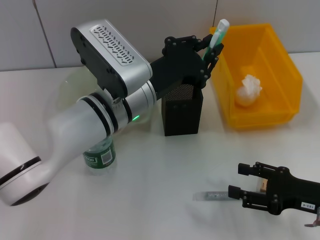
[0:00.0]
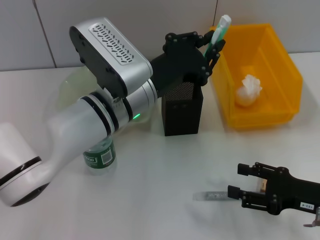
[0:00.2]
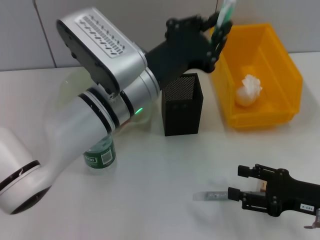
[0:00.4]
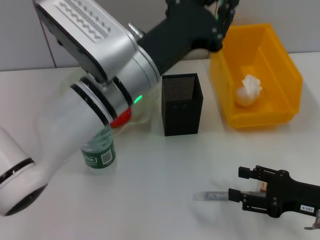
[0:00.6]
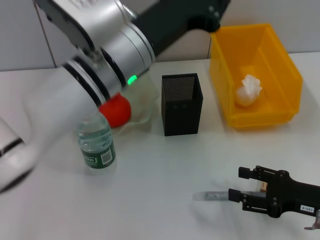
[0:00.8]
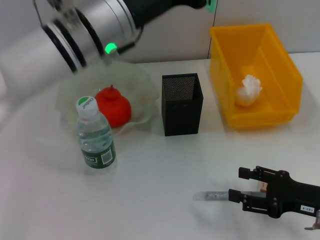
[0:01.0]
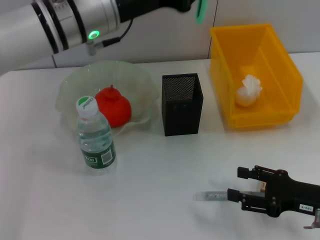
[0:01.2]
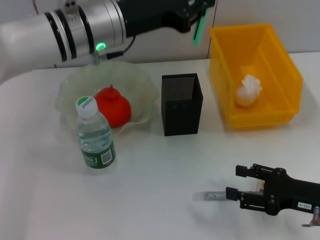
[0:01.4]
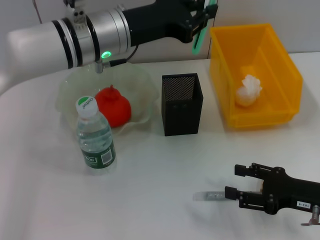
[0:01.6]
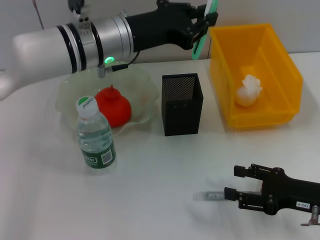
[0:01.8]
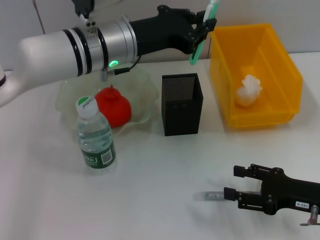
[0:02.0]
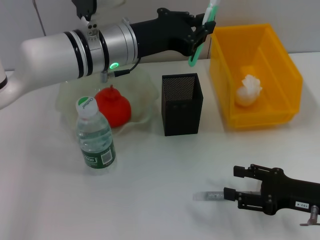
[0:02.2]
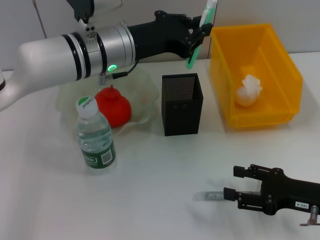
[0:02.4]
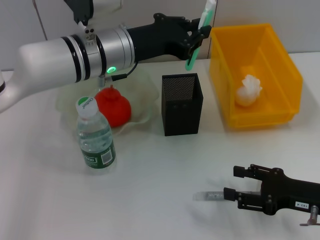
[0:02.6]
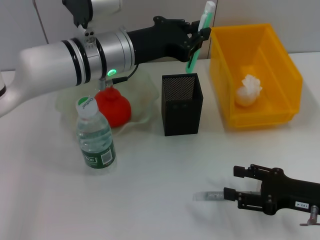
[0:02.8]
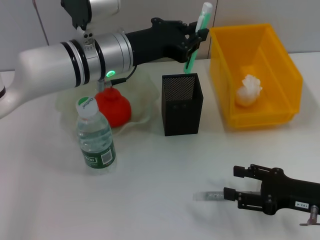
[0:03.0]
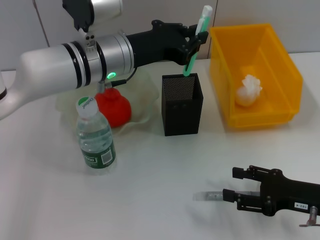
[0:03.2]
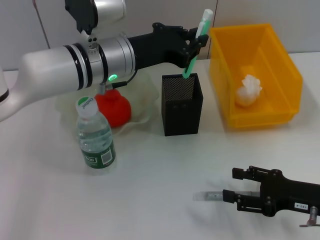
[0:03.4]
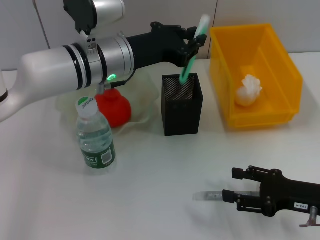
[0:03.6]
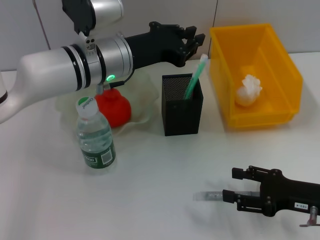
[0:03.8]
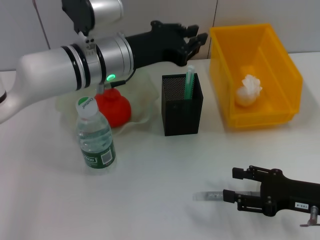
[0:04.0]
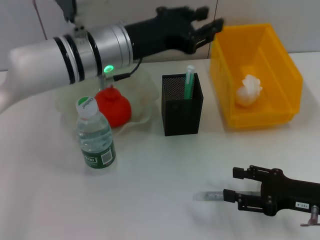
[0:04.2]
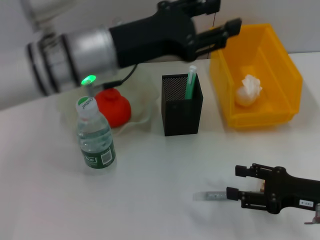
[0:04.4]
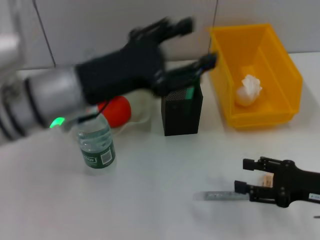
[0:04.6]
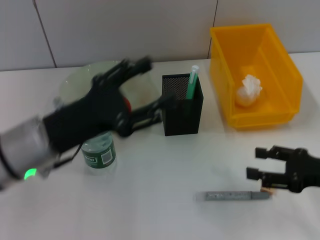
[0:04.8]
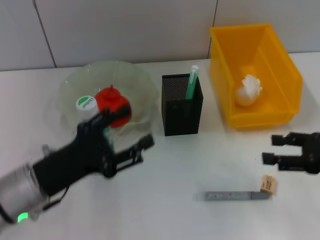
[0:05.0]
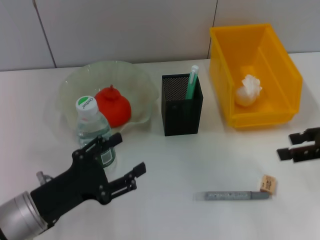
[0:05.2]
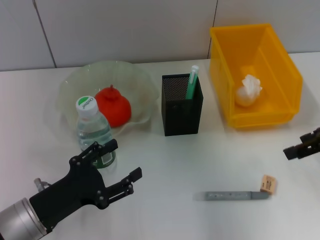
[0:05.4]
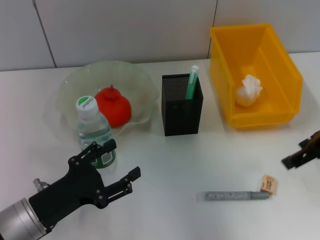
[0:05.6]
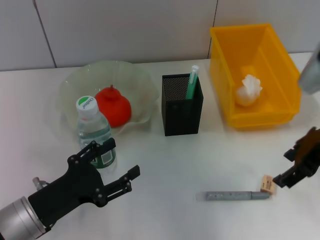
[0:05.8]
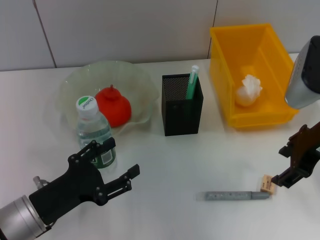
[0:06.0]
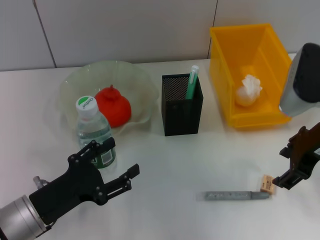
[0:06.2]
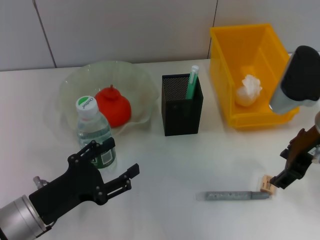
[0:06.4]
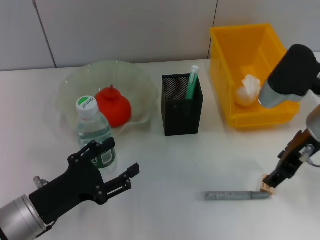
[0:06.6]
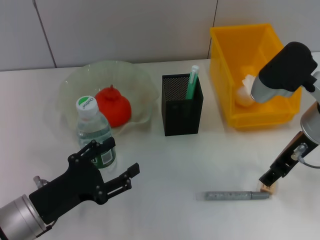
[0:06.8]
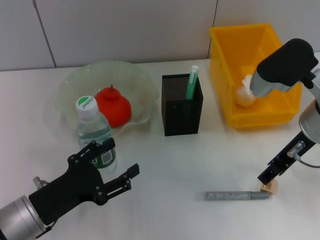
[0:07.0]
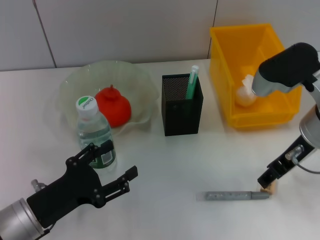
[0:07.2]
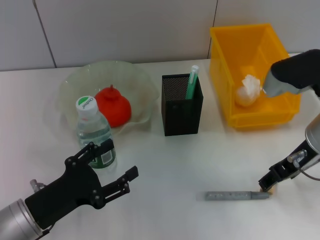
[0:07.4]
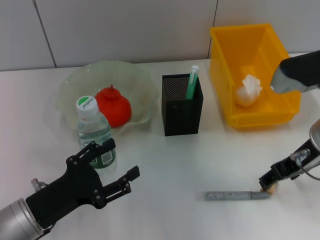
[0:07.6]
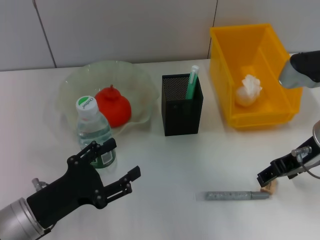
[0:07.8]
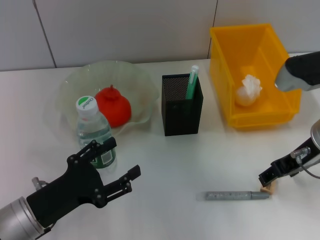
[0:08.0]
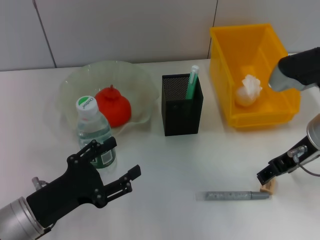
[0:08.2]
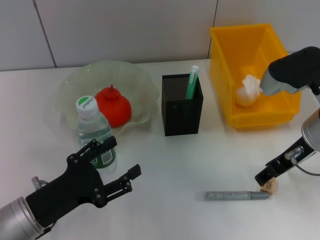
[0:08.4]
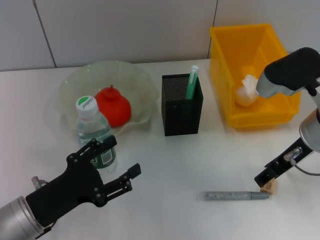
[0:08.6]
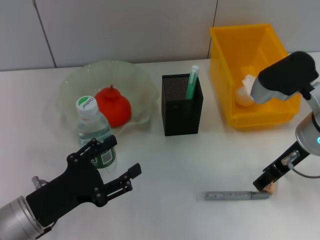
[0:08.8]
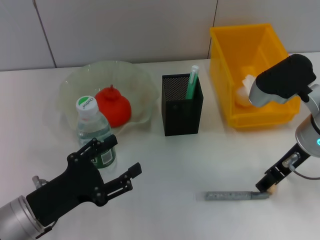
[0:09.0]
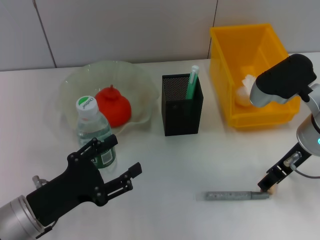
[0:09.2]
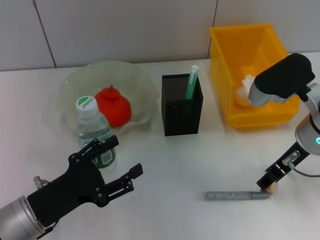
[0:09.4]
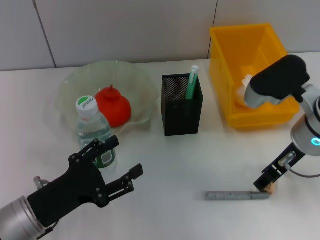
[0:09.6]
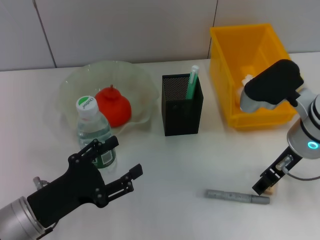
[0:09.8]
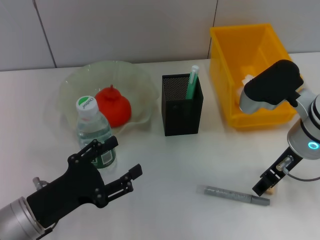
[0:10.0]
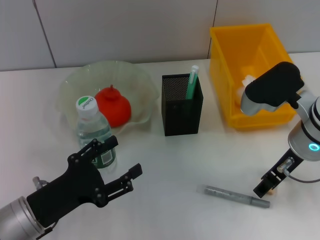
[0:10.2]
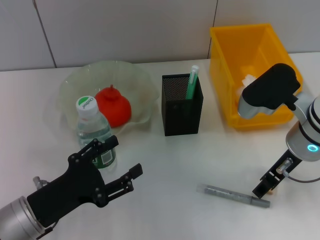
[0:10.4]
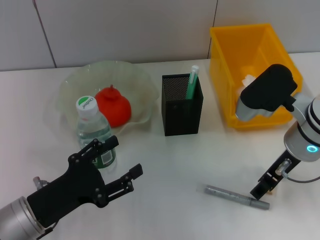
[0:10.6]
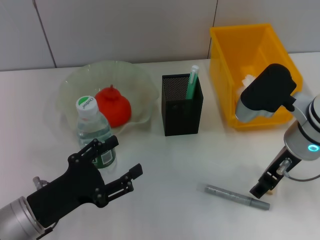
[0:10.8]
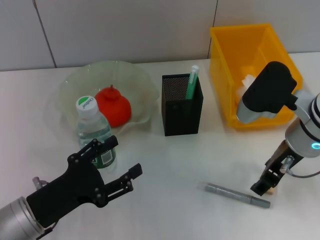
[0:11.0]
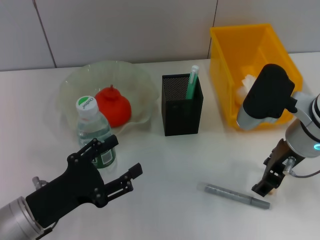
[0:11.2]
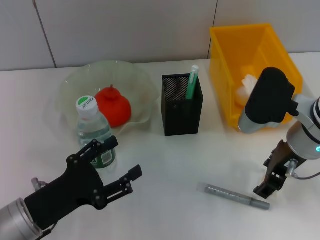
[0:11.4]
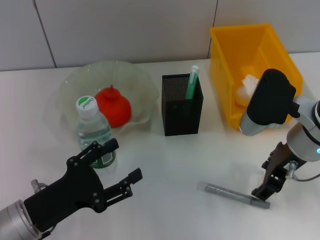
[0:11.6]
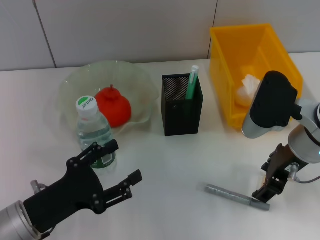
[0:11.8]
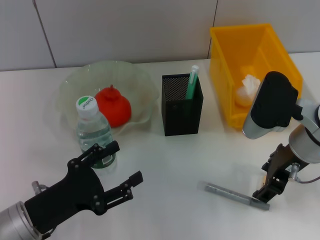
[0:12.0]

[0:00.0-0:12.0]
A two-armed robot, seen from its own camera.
Step, 0:00.0 to 0:04.2: Place the blue utility knife into the pen holder with the left hand.
0:00.0 to 0:01.6: The left gripper travels upward and forward by roughly 10 cm.
0:01.6 to 0:03.0: There are only small adjustments of the grippers.
0:03.0 to 0:04.4: The left gripper goes roughly 5 cm backward, and opens its fingers.
0:04.4 to 0:06.0: The right gripper travels upward and forward by about 15 cm, while the left gripper heads downward, backward and to the left, covering approximately 25 cm, and opens.
0:07.6 to 0:09.0: The grippers stay close to where they were, moving slightly.
0:09.0 to 0:10.4: The grippers stay close to where they were, moving slightly.

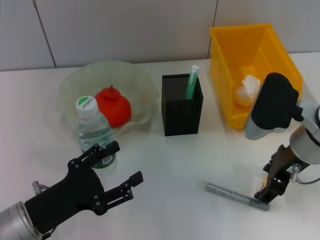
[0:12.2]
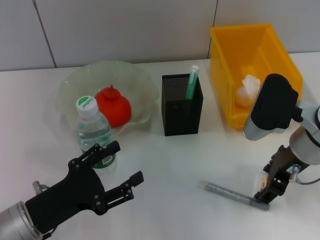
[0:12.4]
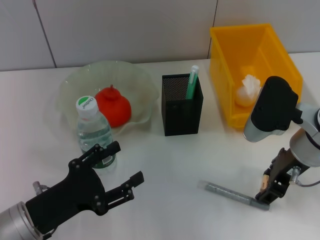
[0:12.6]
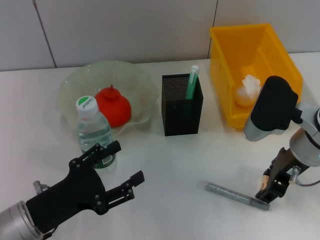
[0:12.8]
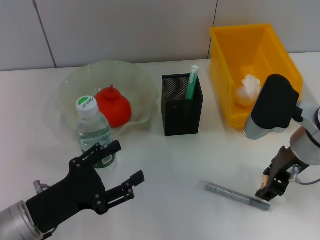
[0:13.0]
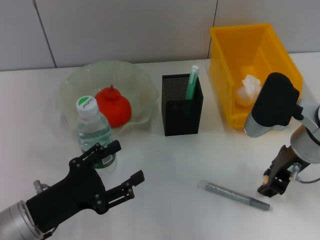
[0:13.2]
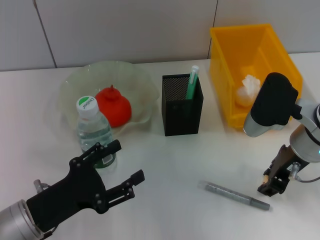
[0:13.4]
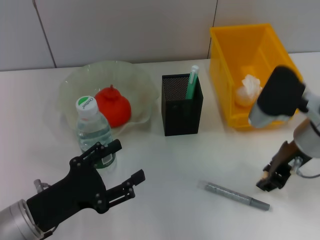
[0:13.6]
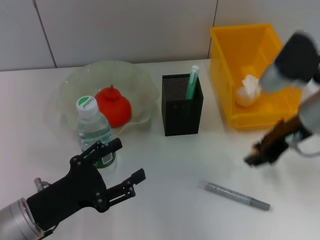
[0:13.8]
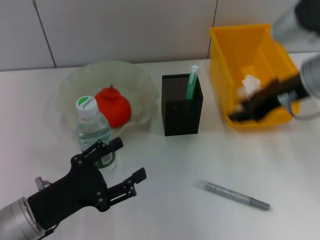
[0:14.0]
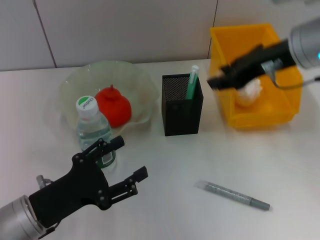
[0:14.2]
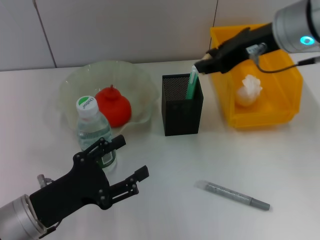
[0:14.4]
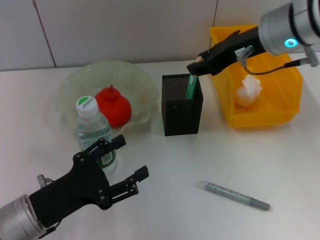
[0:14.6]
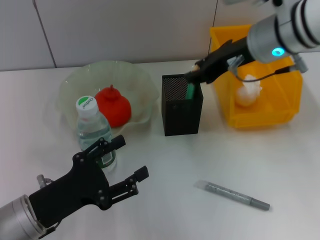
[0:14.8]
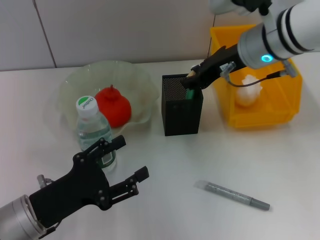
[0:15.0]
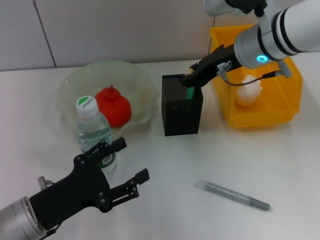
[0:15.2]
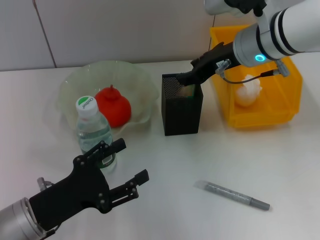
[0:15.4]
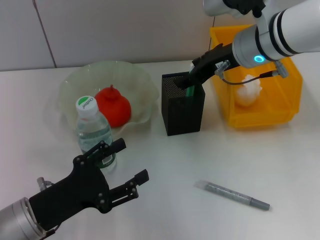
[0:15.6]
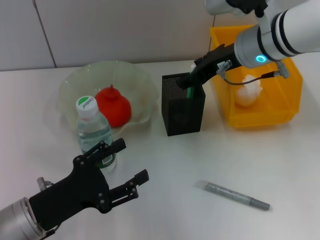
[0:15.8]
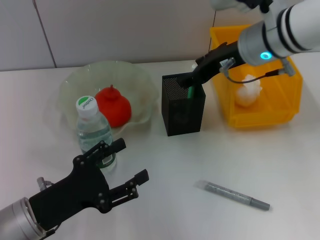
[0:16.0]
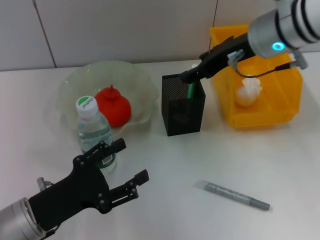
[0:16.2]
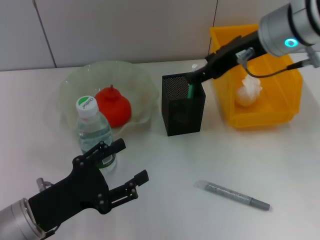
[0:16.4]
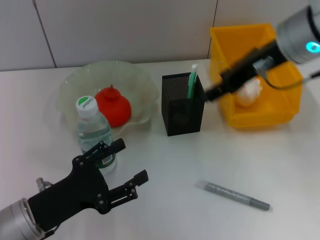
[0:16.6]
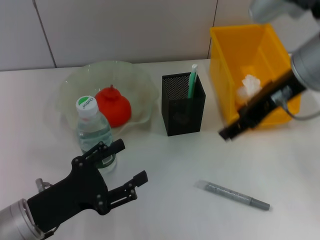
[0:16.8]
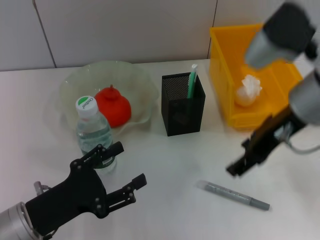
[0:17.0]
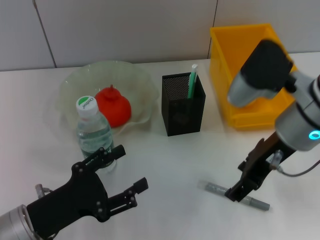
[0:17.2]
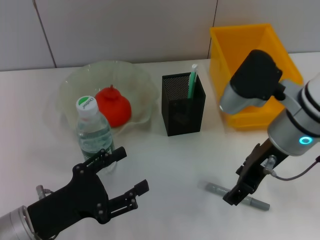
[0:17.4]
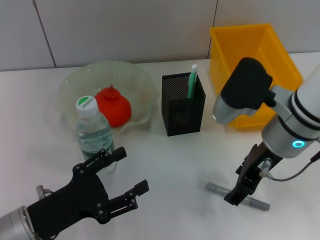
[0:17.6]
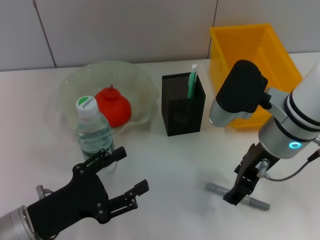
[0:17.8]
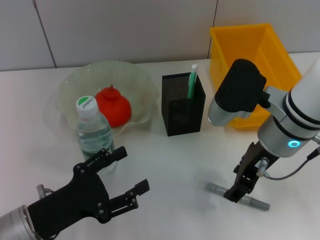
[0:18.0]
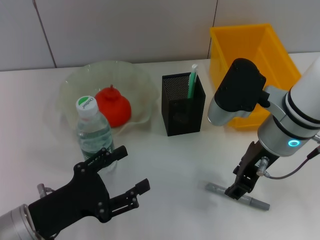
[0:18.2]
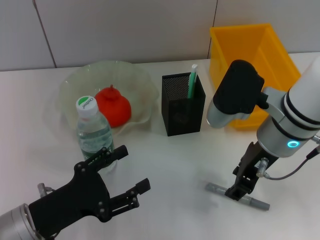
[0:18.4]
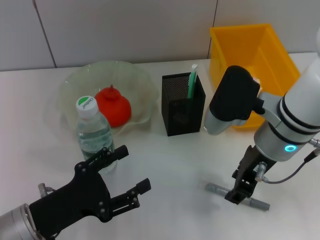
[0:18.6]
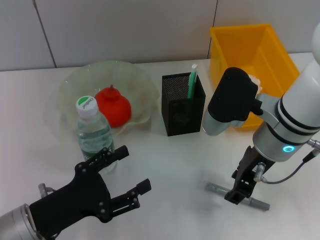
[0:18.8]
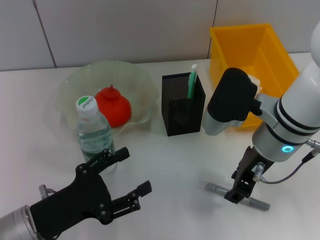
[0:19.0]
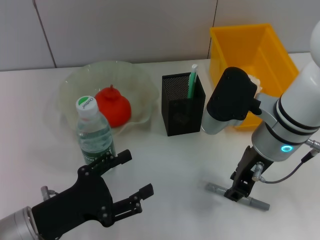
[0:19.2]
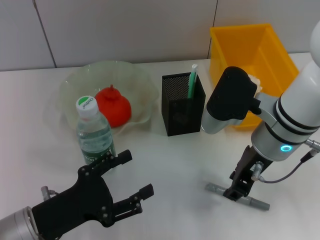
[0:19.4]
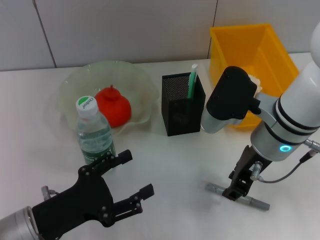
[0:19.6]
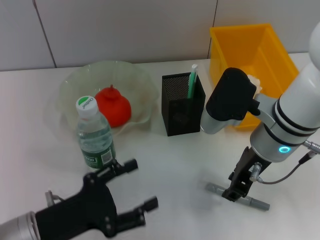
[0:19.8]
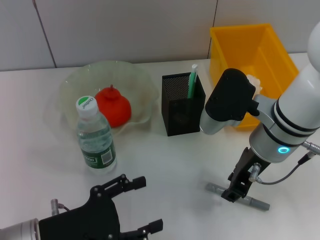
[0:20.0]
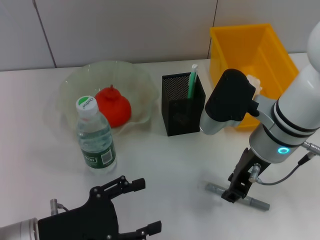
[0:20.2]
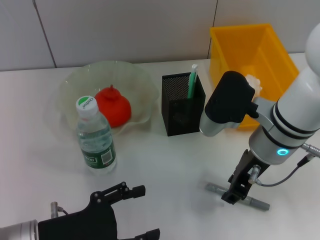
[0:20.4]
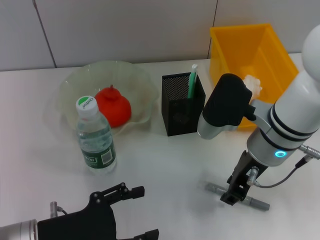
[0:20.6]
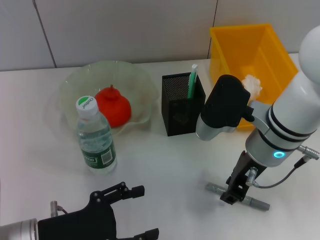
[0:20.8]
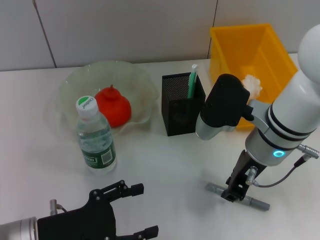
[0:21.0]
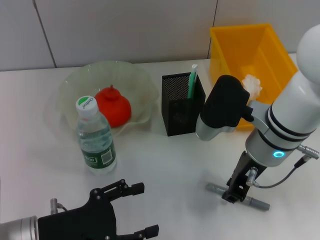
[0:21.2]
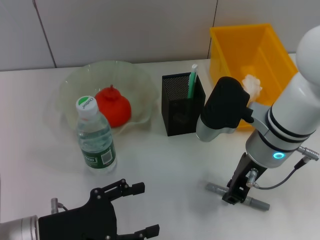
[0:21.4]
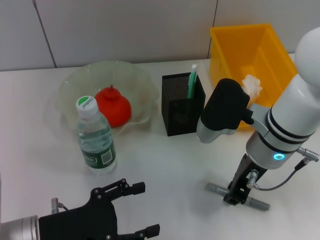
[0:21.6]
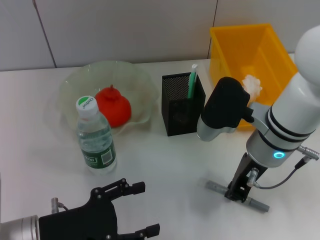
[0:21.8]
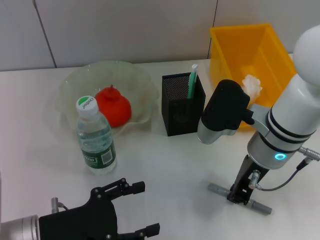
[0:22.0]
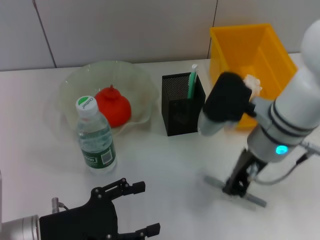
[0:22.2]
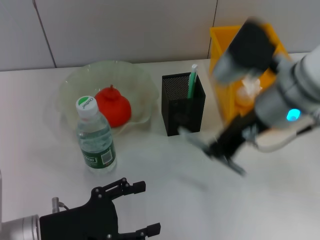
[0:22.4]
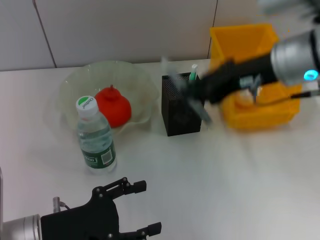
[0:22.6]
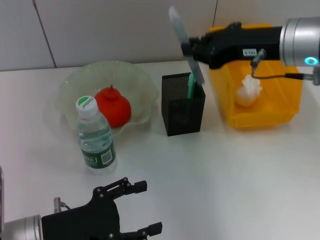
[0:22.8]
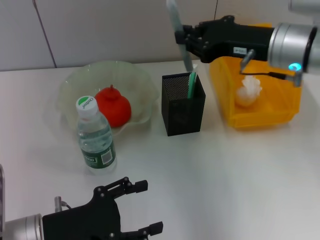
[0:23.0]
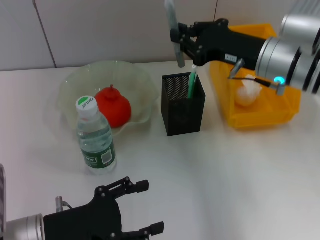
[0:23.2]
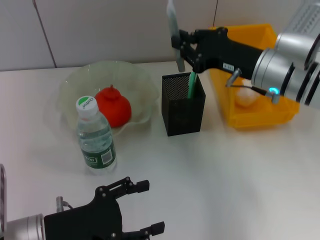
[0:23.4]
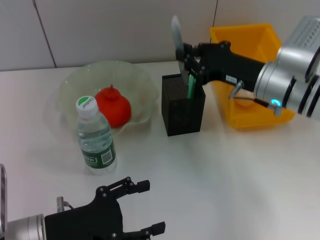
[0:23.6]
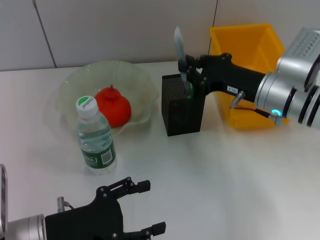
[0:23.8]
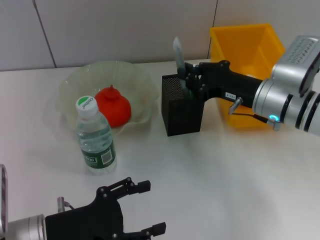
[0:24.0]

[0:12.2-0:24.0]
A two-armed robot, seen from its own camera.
Step, 0:13.2 to 0:16.0: Put the eraser into the pen holder with the right hand.
Step, 0:16.2 to 0:21.8: Grab the gray glue with the right hand.
0:12.2 to 0:13.6: The right gripper closes its fingers.
0:13.6 to 0:15.2: The right gripper shifts roughly 10 cm forward, to the left and upward.
0:15.2 to 0:16.6: The right gripper shifts approximately 10 cm upward and backward, and opens.
0:16.6 to 0:18.2: The right gripper shifts approximately 10 cm downward.
0:18.2 to 0:19.6: The two grippers keep their place.
0:19.6 to 0:21.0: The grippers stay close to where they were, moving slightly.
0:21.0 to 0:22.6: The right gripper shifts some 10 cm upward.
0:22.6 to 0:24.0: The right gripper is displaced downward by approximately 15 cm.
